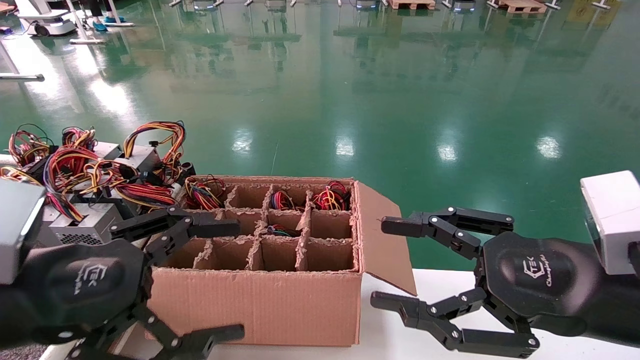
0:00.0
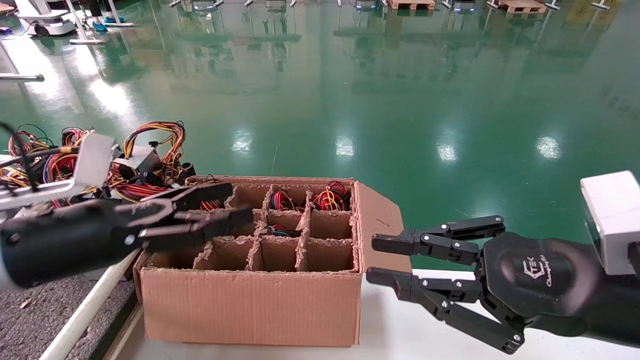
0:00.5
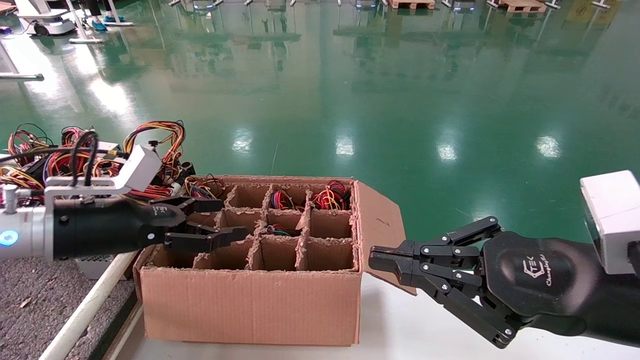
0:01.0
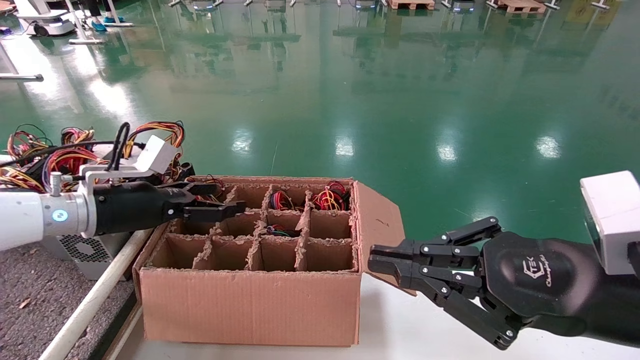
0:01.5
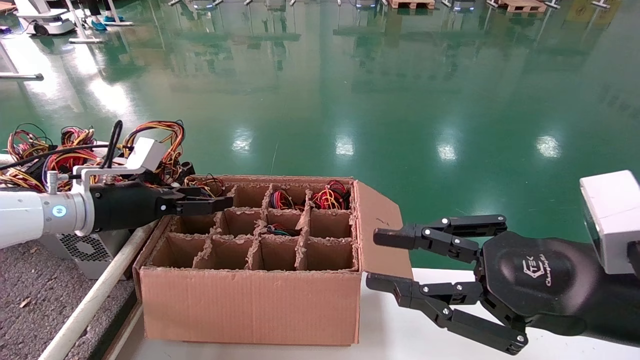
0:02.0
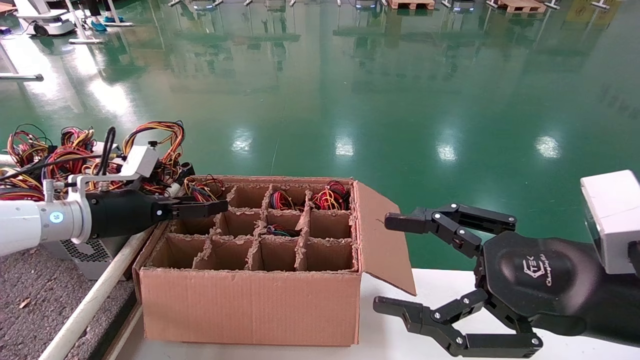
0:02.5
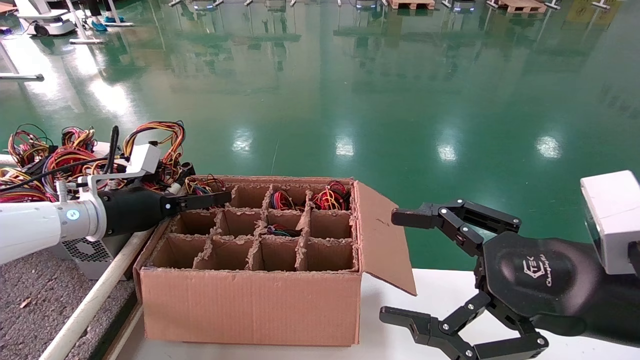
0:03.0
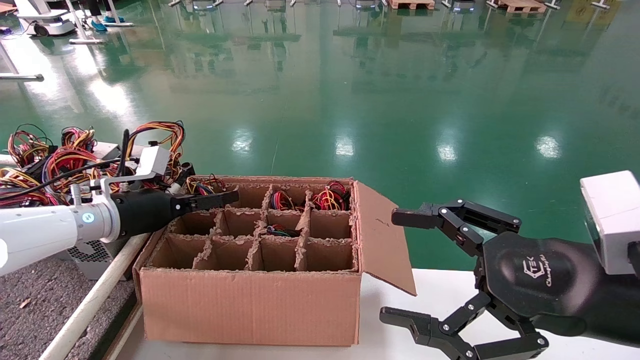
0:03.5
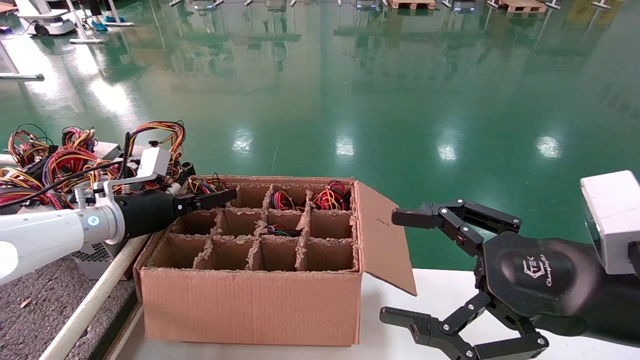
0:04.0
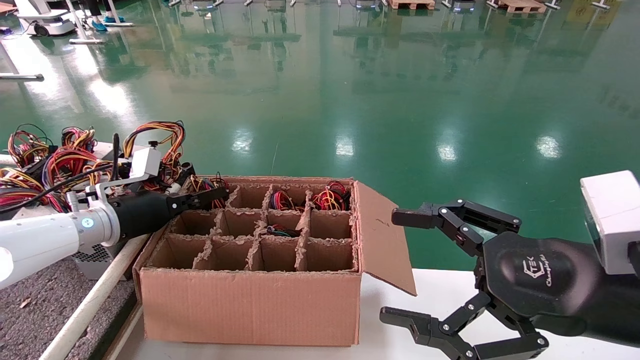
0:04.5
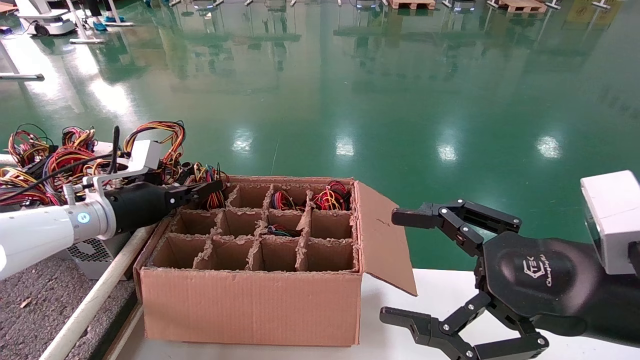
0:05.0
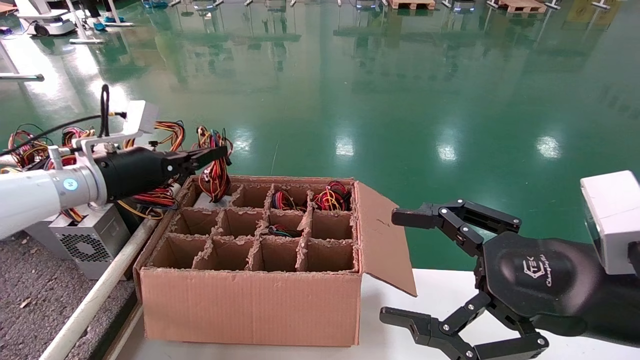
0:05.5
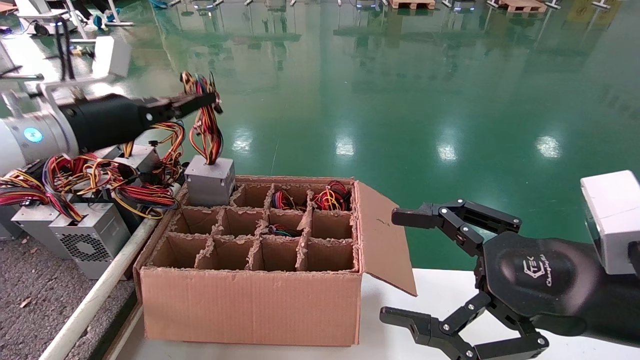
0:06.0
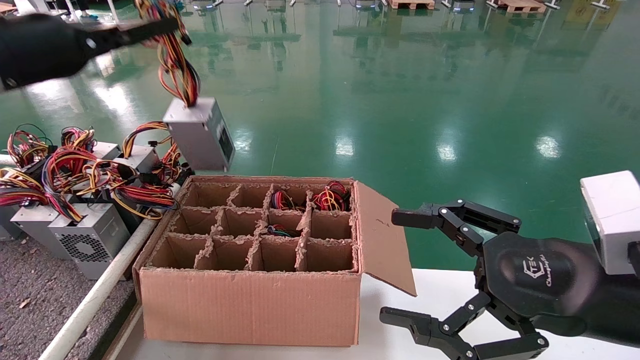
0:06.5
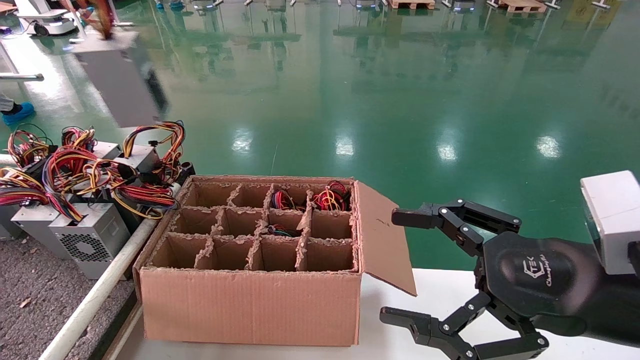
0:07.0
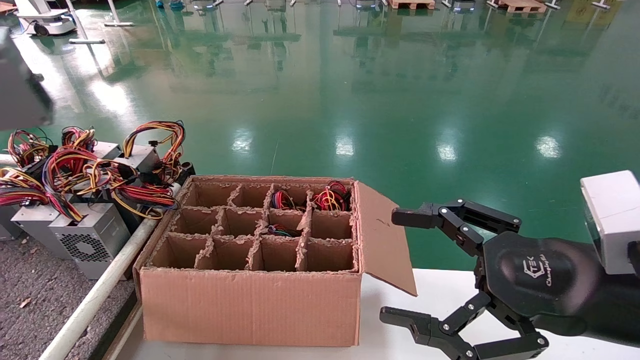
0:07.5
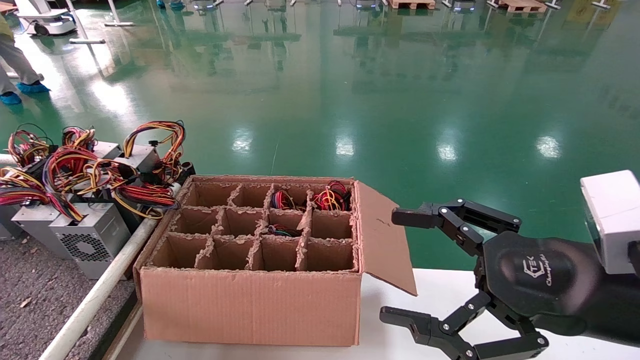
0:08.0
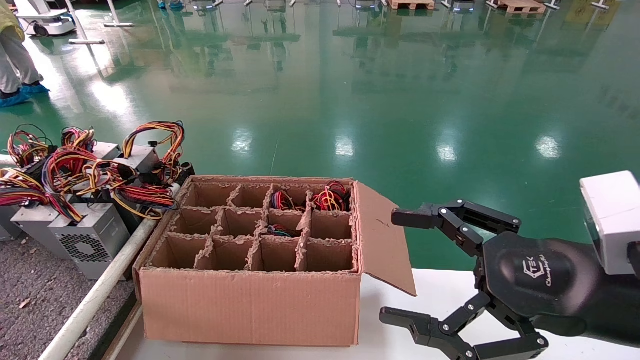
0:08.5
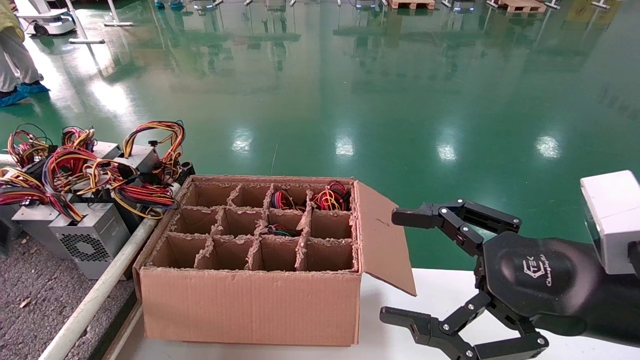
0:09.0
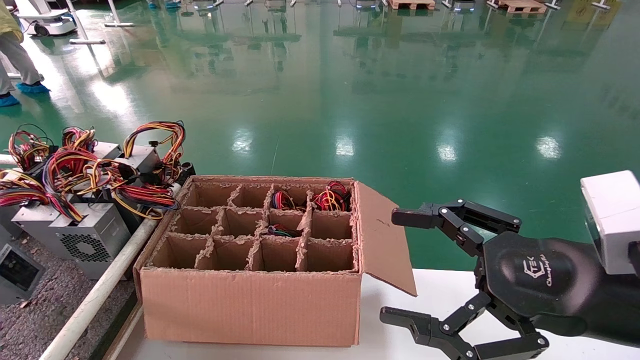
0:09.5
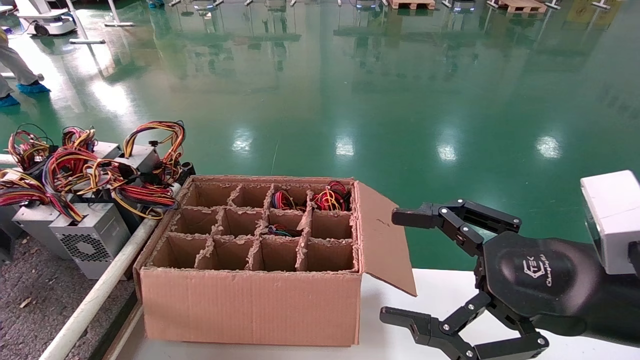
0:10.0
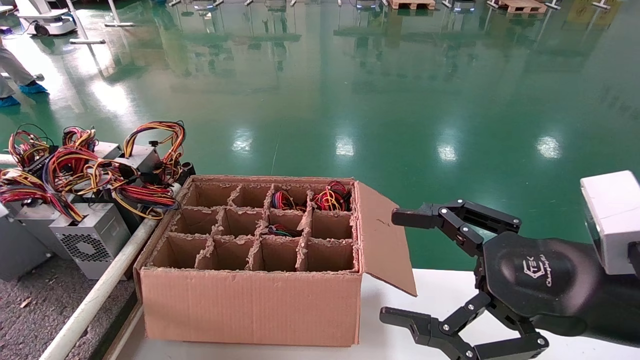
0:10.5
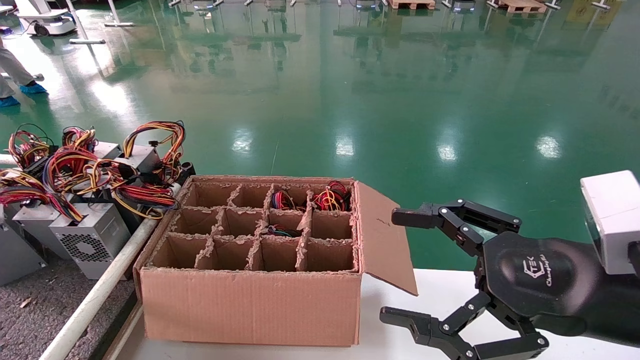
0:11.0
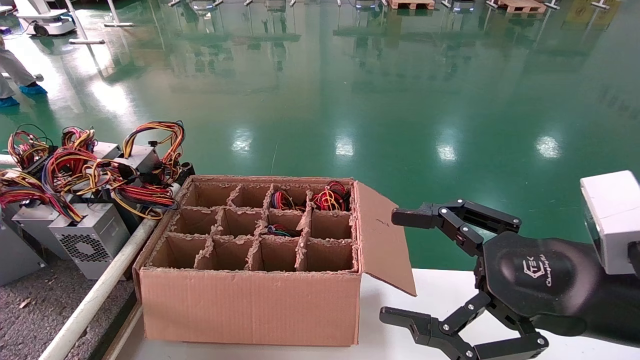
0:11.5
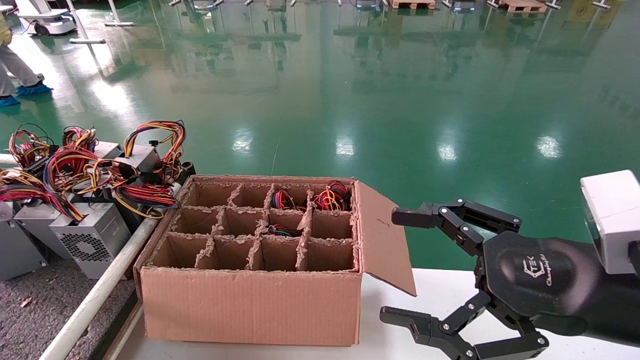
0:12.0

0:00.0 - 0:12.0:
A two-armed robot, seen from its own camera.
Step, 0:00.5 - 0:04.5: Grab and lift the power supply from the large box.
0:00.0 - 0:02.0: The left gripper shifts about 20 cm forward, while the right gripper closes.
0:02.0 - 0:04.0: The right gripper opens.
0:04.0 - 0:06.0: The left gripper heads upward, covering some 15 cm, and closes up.
0:06.0 - 0:08.0: The left gripper goes roughly 35 cm to the left and backward.
0:08.0 - 0:10.0: The left gripper goes some 15 cm downward.
0:10.0 - 0:12.0: The left gripper goes roughly 5 cm forward.

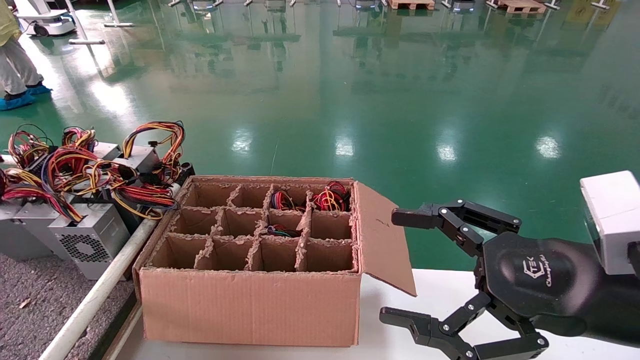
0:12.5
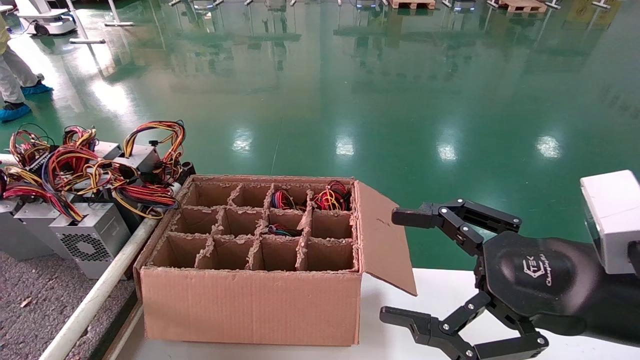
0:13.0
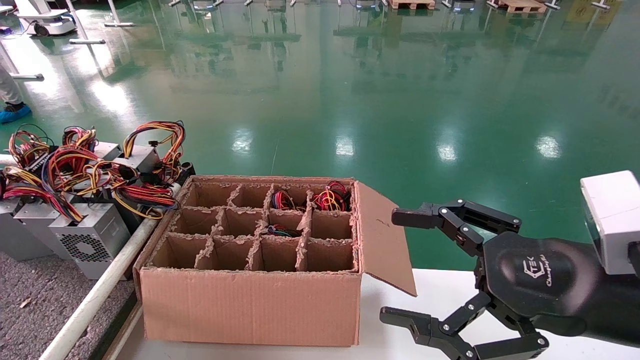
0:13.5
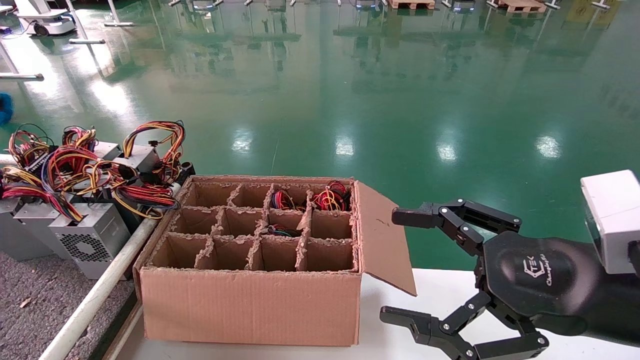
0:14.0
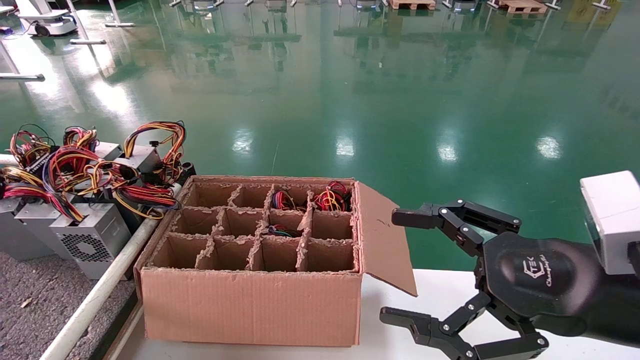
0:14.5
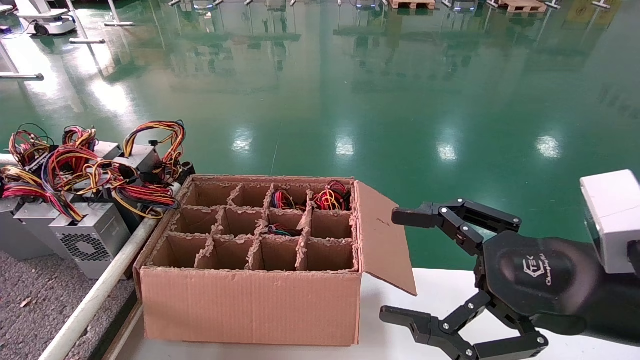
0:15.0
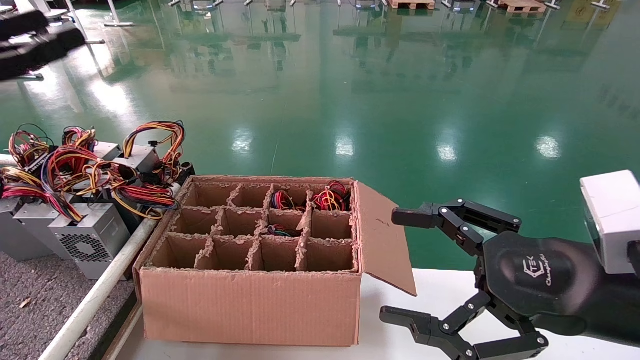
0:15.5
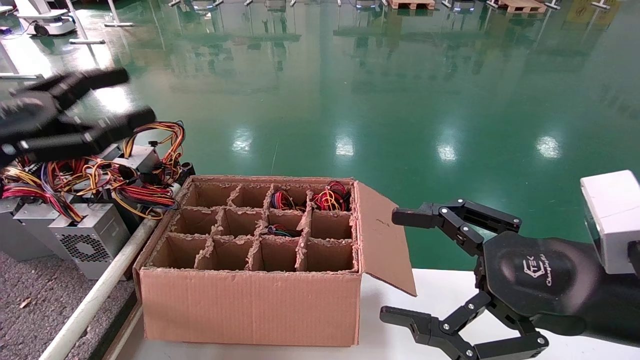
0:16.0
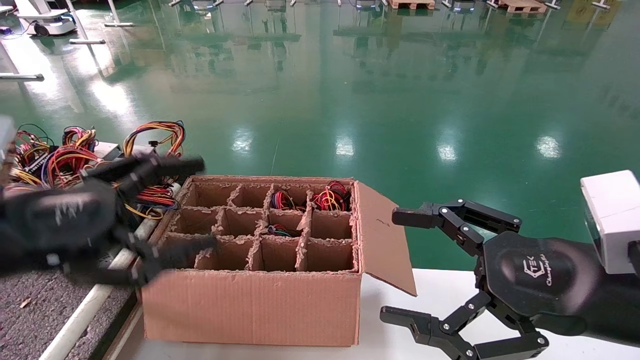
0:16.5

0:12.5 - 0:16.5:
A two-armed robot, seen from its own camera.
0:12.5 - 0:14.5: The left gripper travels upward by some 5 cm, and opens up.
0:14.5 - 0:16.5: The left gripper moves to the right, approximately 25 cm.
